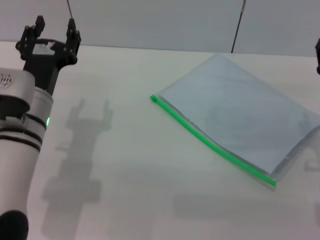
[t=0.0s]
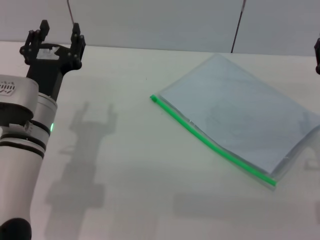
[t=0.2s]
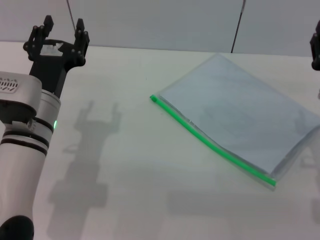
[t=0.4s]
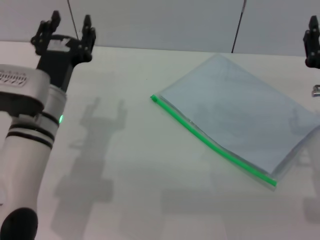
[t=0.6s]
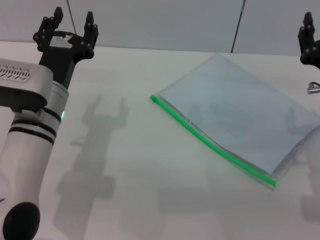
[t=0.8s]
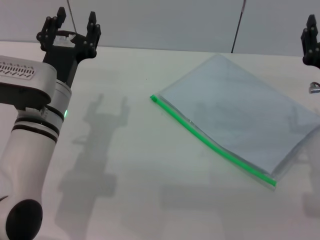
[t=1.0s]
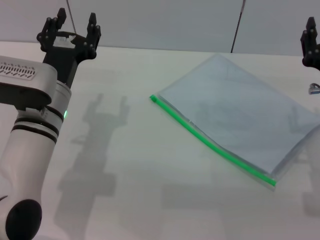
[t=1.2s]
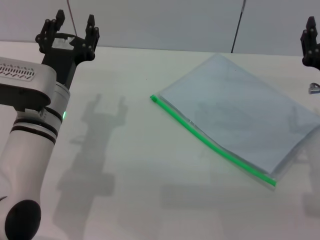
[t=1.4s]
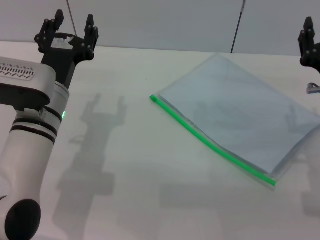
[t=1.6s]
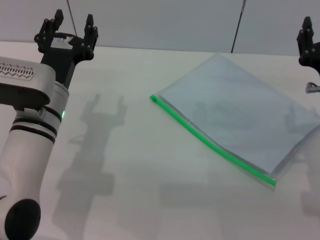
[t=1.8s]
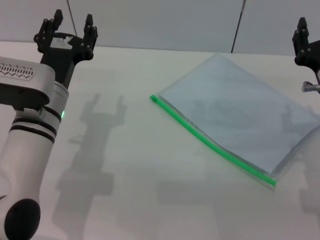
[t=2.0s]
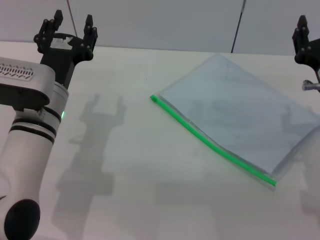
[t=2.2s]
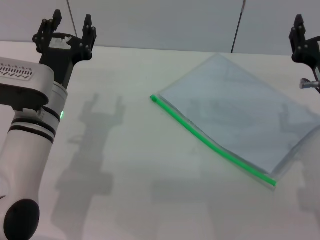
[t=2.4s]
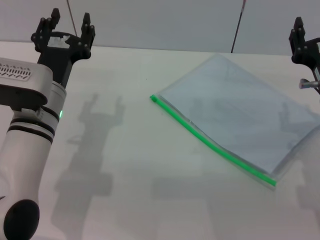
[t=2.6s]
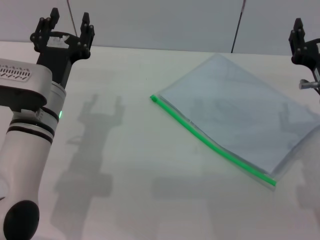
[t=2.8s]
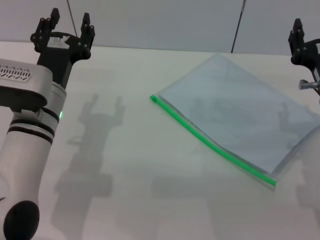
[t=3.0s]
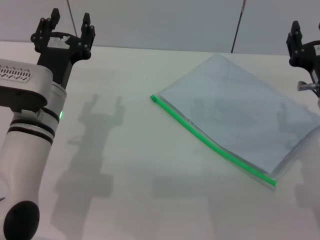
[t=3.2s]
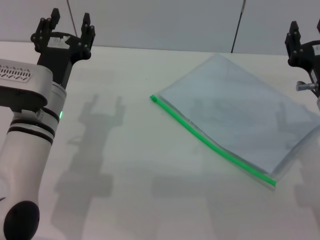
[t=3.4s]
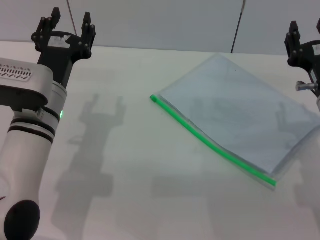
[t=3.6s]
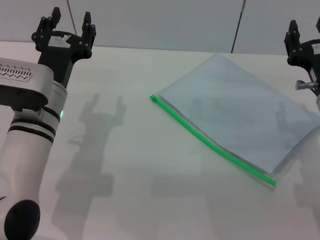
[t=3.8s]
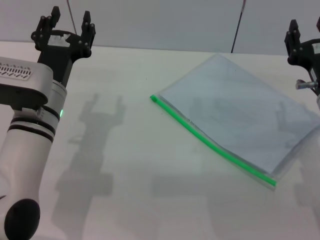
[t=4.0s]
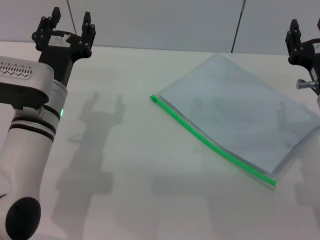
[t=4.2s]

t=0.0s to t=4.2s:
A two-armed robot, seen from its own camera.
t=0.0s to t=2.8s: The grippers move only a little.
t=2.8s to t=4.2s: The two grippers keep their place.
